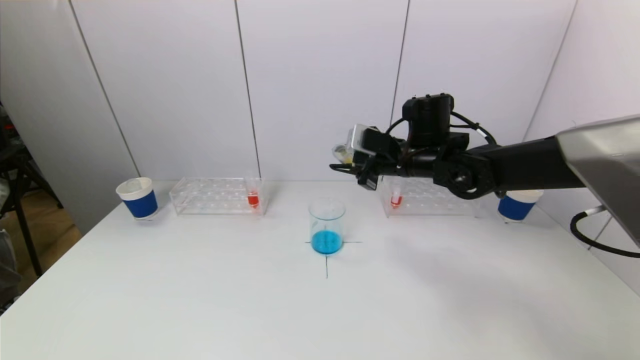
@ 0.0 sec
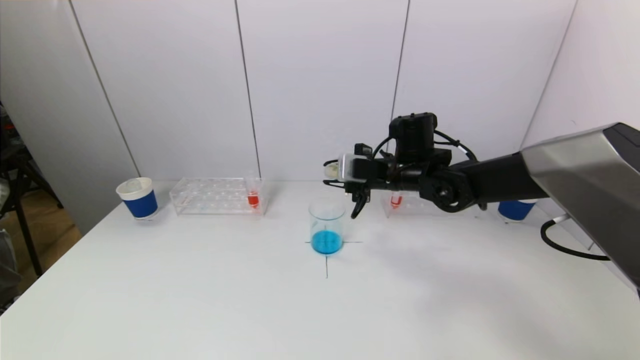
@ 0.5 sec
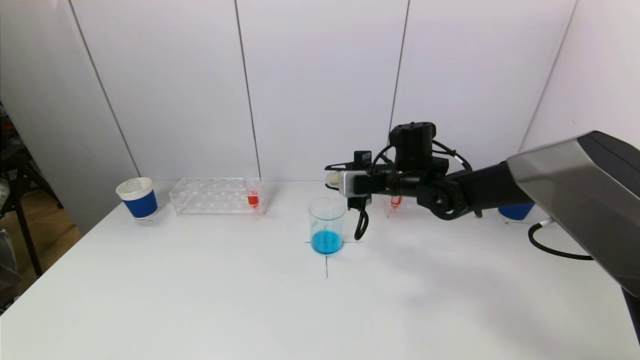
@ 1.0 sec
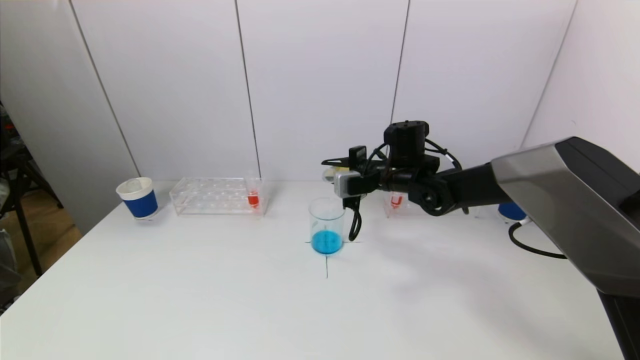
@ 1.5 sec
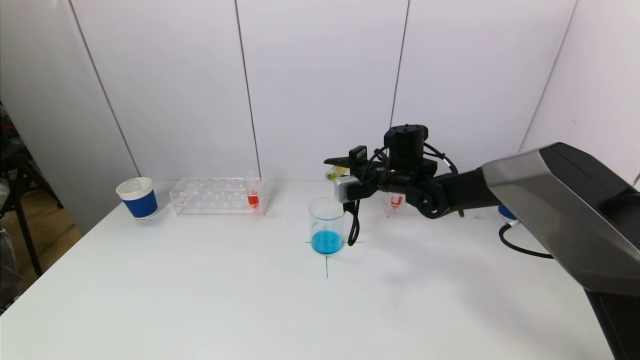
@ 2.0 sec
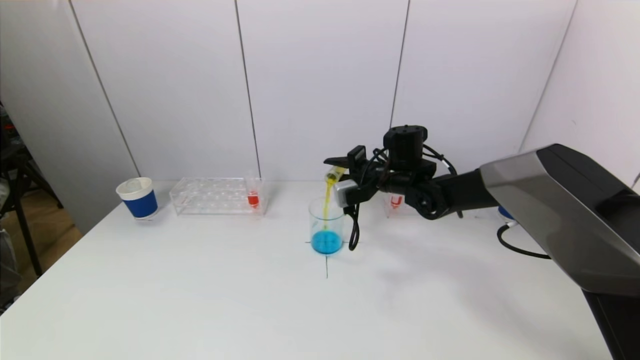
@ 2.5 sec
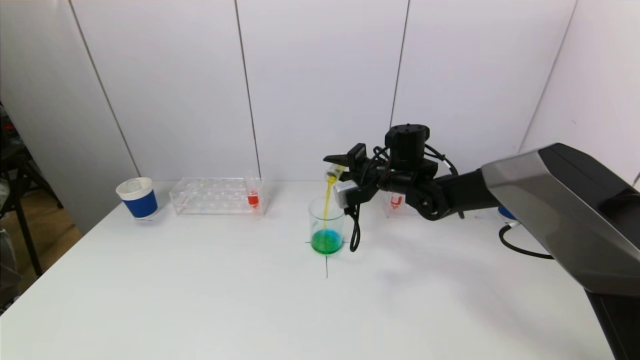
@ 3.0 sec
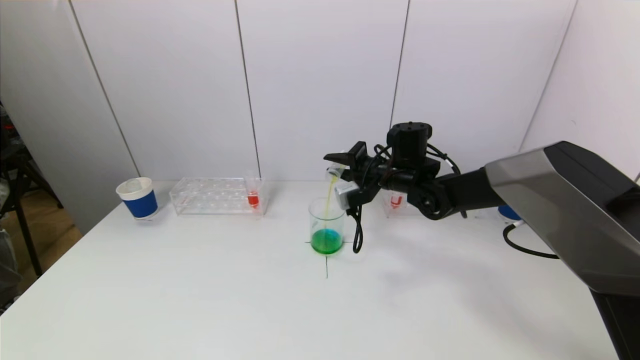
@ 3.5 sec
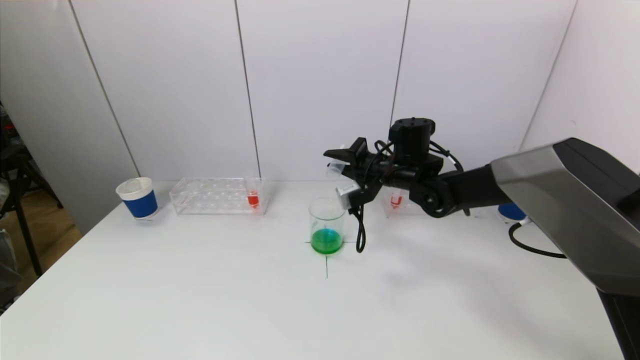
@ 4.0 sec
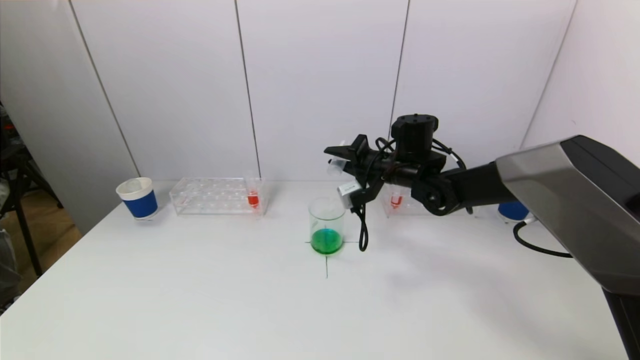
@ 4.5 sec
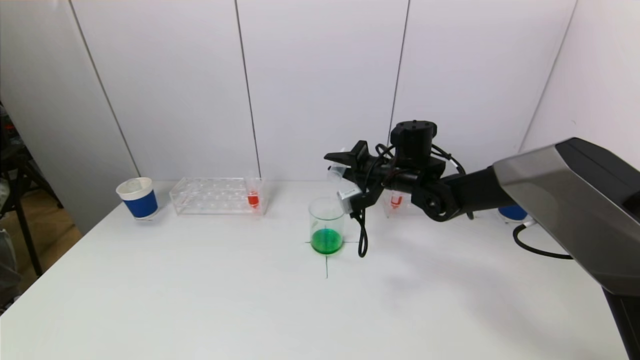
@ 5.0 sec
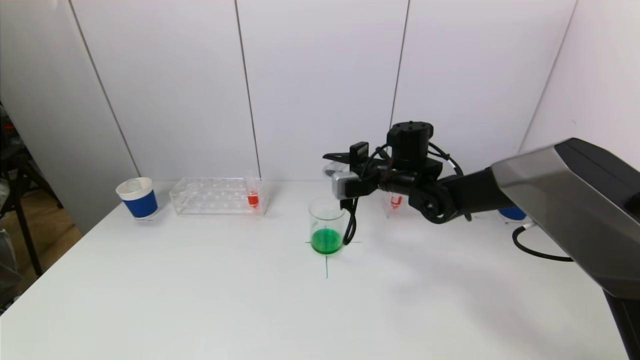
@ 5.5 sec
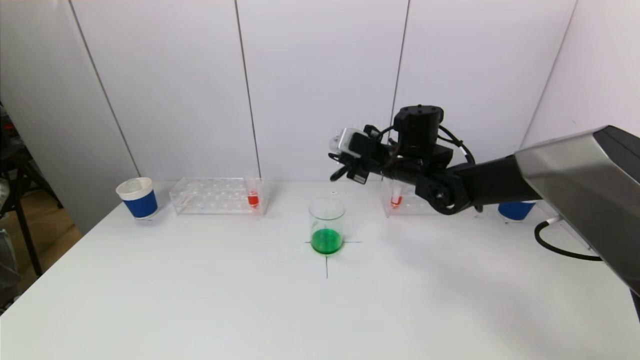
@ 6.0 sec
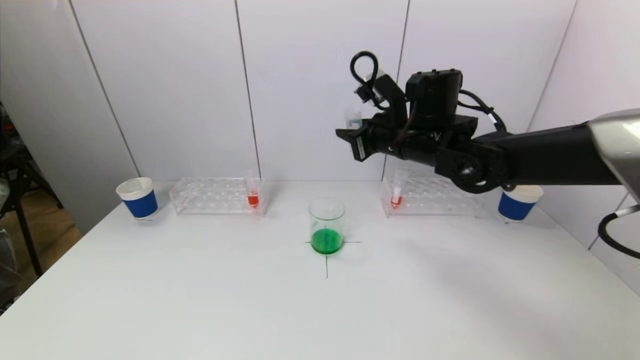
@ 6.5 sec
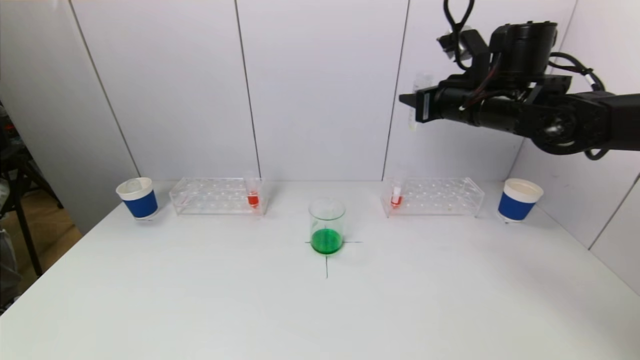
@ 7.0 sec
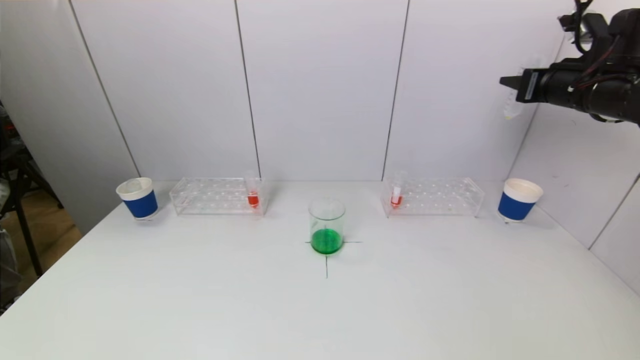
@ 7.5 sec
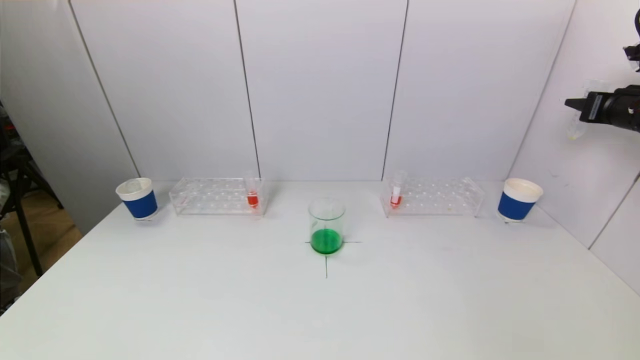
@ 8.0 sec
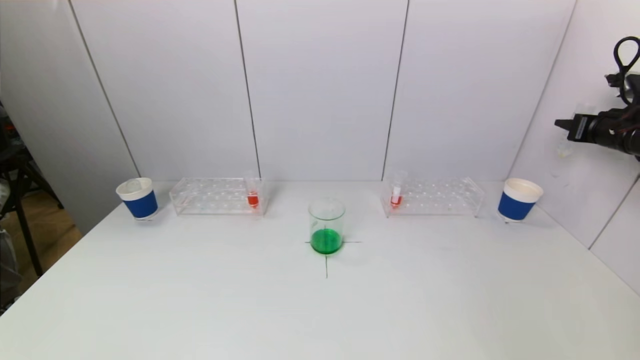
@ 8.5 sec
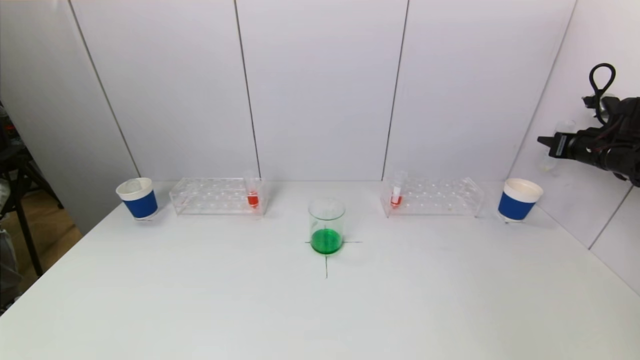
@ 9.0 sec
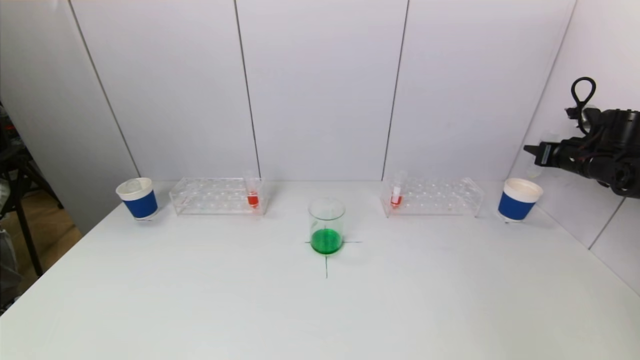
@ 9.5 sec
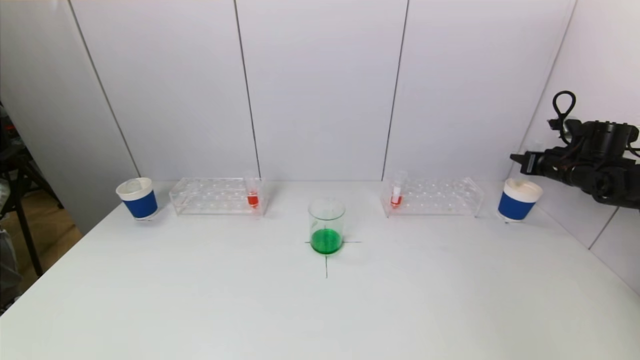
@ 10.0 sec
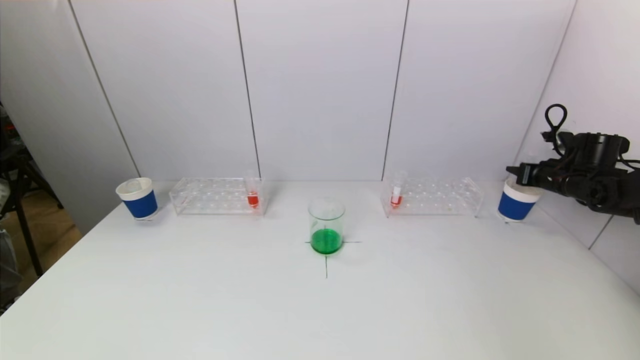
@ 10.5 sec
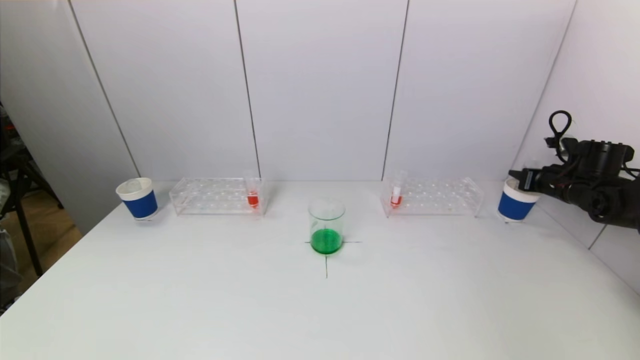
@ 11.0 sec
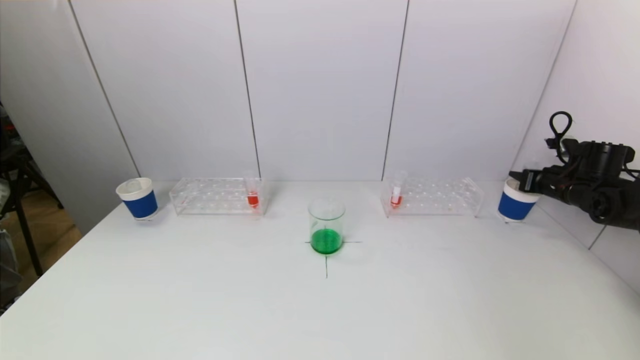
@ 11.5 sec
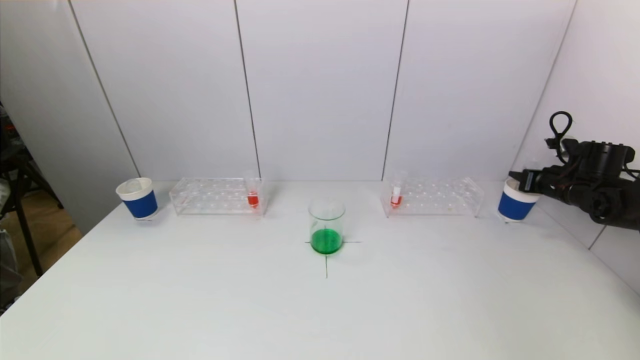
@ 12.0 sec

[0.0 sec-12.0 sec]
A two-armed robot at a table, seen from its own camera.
Task of the whole recording: pick up a test tube with pigment on left test tube rack and a test tube with pigment on right test tube rack by grippers and pour them into the beaker.
Step, 0.0 sec to 4.0 sec: Pour the yellow reagent into the graduated cylinder with the right gripper.
0.0 sec to 2.0 sec: The right gripper moves downward, approximately 5 cm.
6.0 sec to 8.0 sec: The right gripper shifts some 35 cm to the right.
8.0 sec to 10.0 sec: The right gripper goes about 15 cm downward and forward.
10.0 sec to 12.0 sec: There are only small adjustments of the grippers.

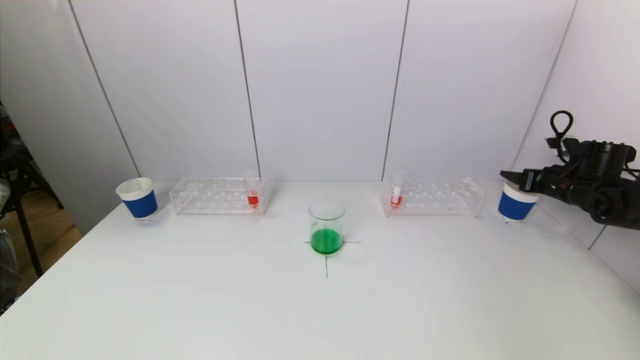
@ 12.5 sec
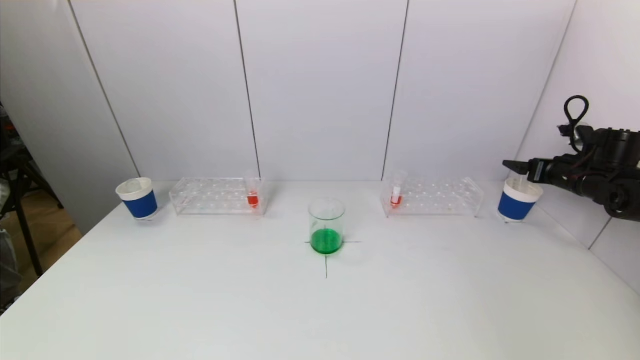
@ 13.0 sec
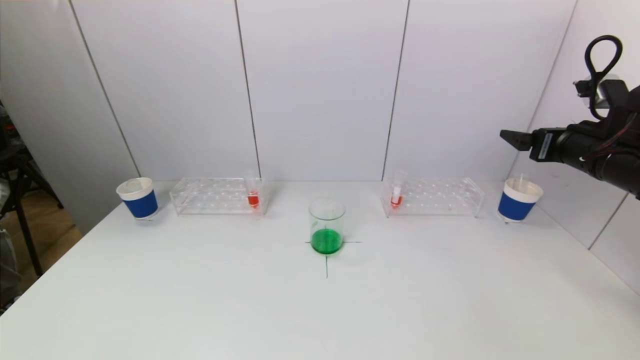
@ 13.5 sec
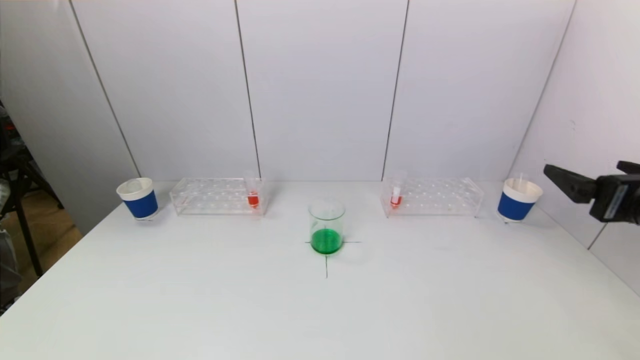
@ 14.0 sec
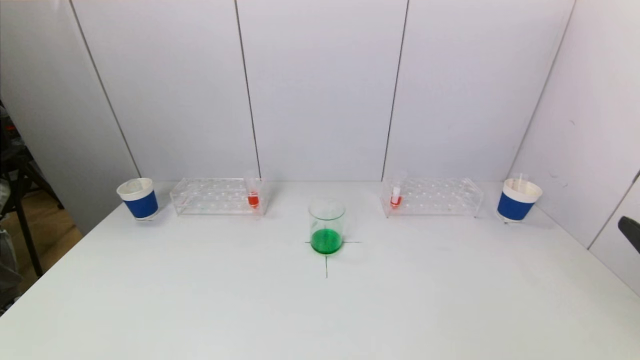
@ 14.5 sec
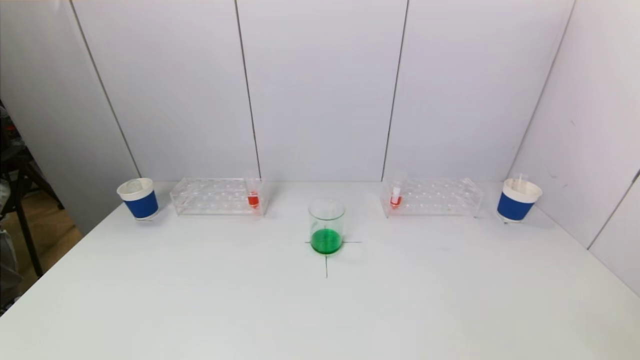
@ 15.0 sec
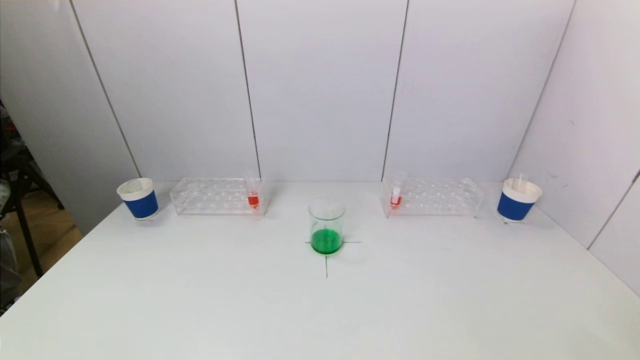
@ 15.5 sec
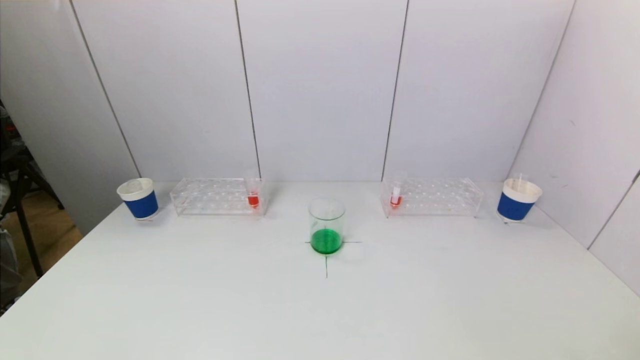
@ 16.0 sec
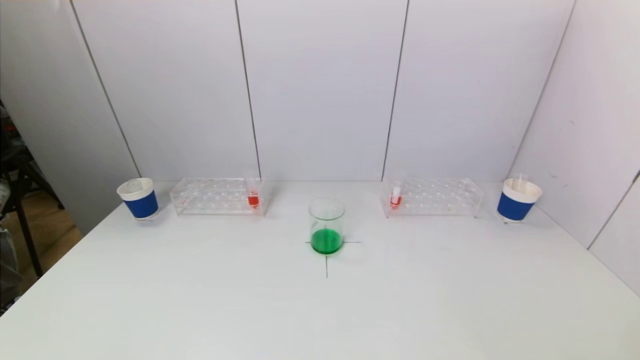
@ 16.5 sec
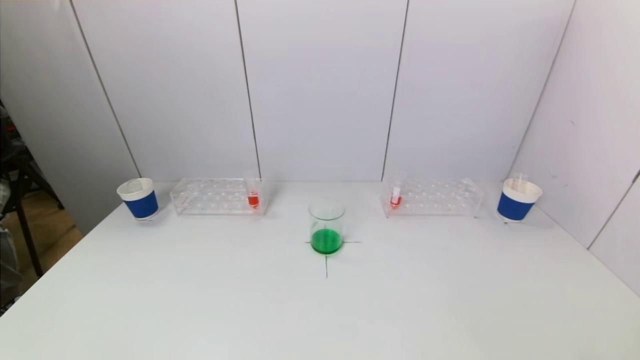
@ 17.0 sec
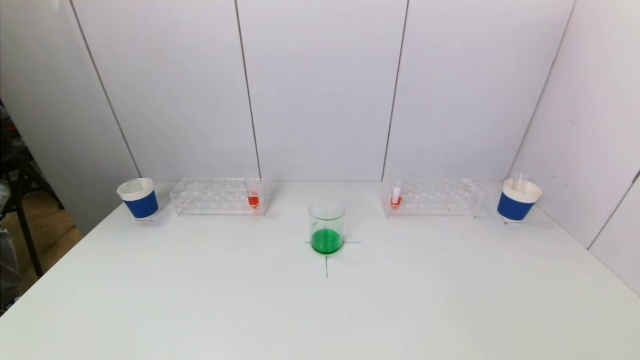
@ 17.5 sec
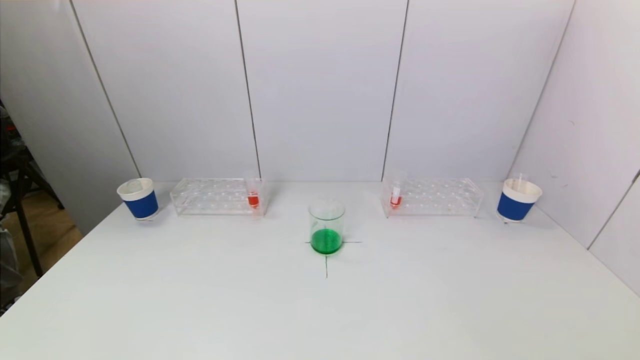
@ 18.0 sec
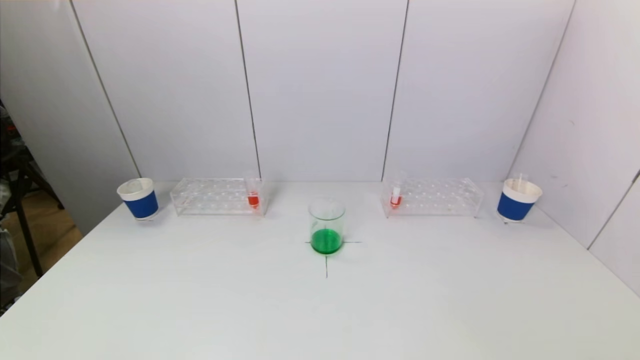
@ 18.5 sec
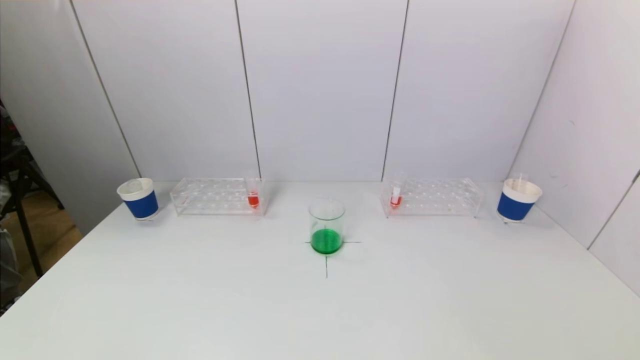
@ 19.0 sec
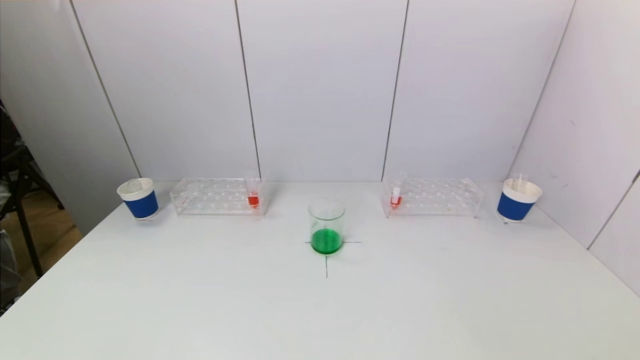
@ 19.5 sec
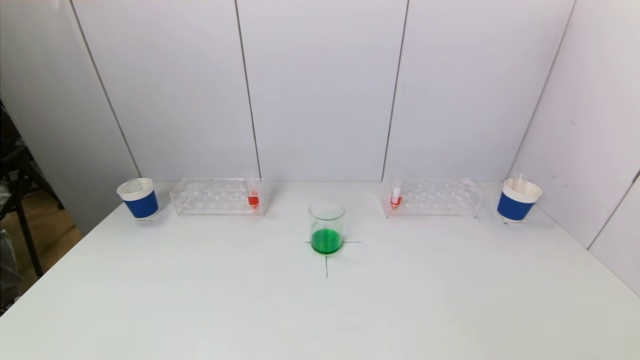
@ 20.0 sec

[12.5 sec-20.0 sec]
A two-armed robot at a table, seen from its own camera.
Task of the whole recording: pick up a test tube with pigment on left test tube rack and a test tube with pigment on right test tube rack by grippers and pour them into the beaker.
12.5 sec to 14.5 sec: The right gripper is displaced backward and to the left by some 40 cm.
14.5 sec to 16.5 sec: The right gripper moves downward and backward, about 15 cm.
18.0 sec to 20.0 sec: Both grippers stay about where they are.
